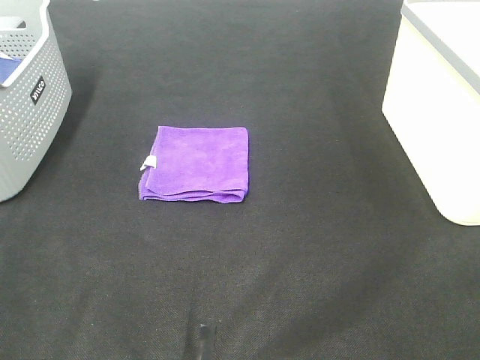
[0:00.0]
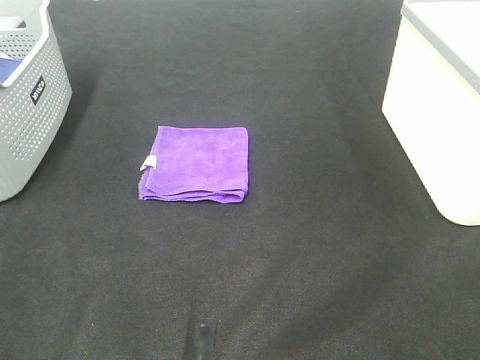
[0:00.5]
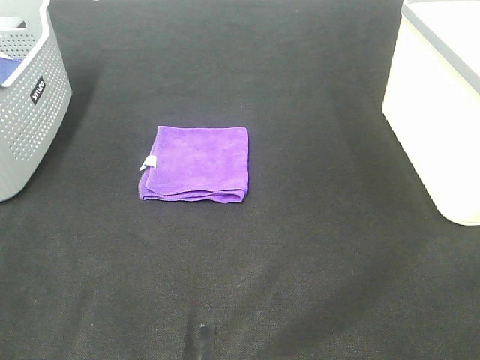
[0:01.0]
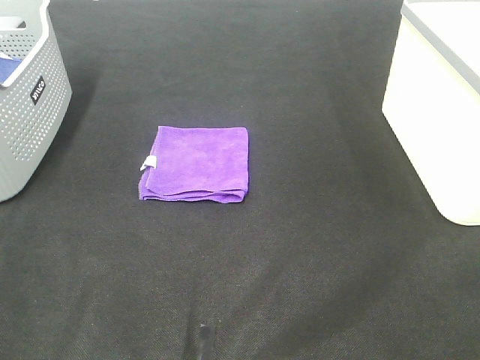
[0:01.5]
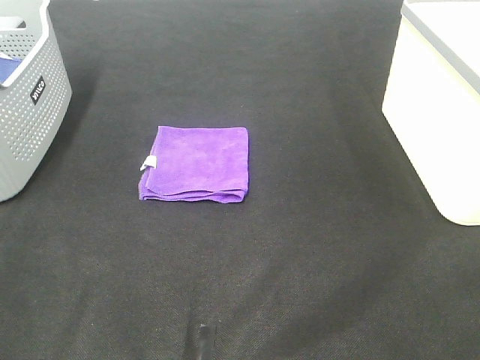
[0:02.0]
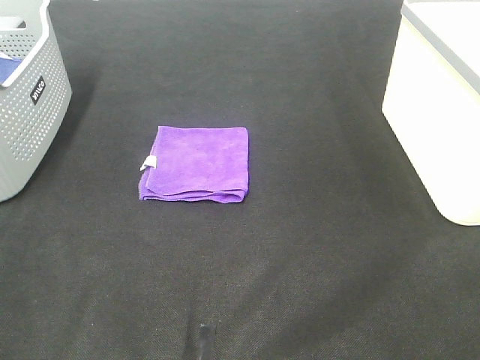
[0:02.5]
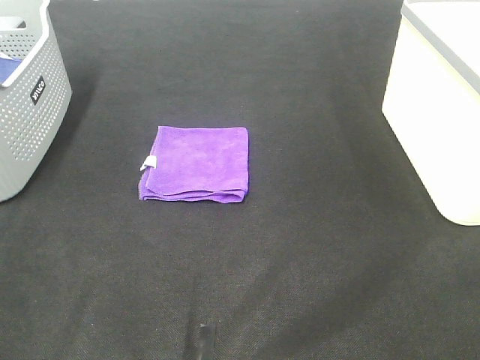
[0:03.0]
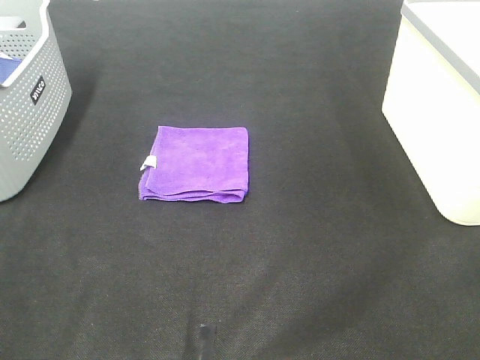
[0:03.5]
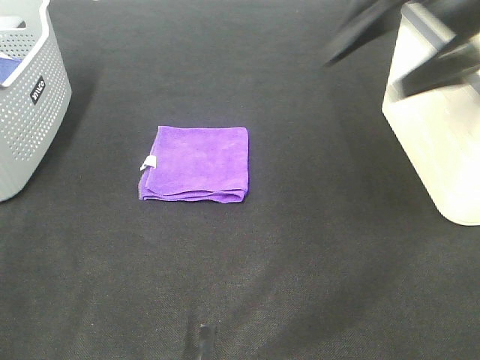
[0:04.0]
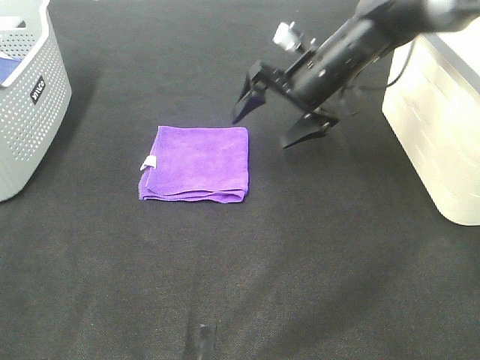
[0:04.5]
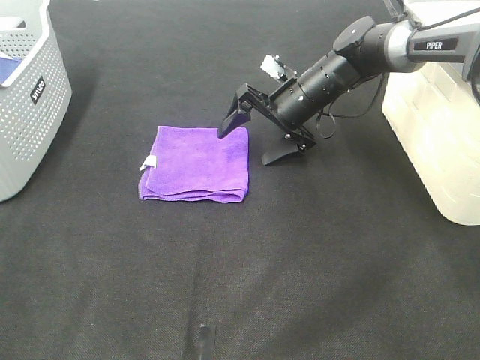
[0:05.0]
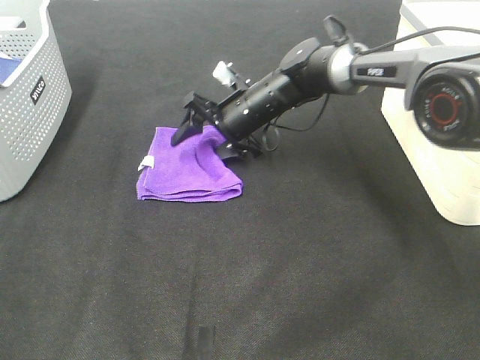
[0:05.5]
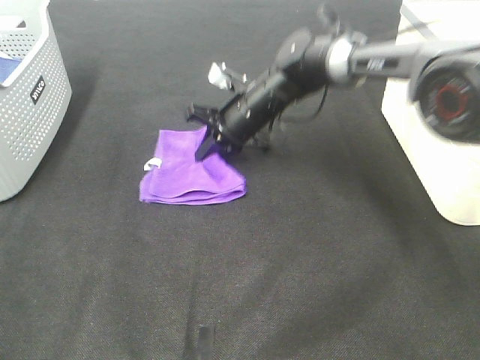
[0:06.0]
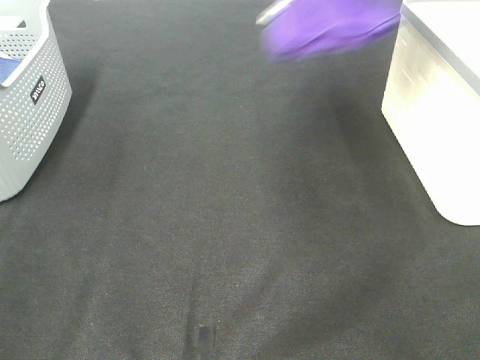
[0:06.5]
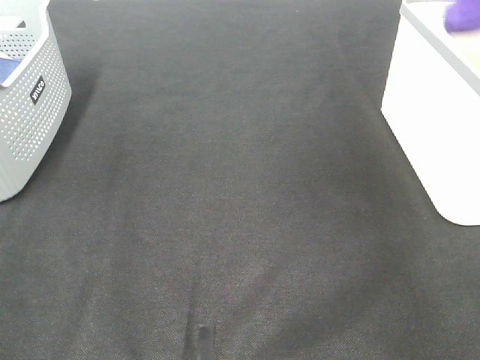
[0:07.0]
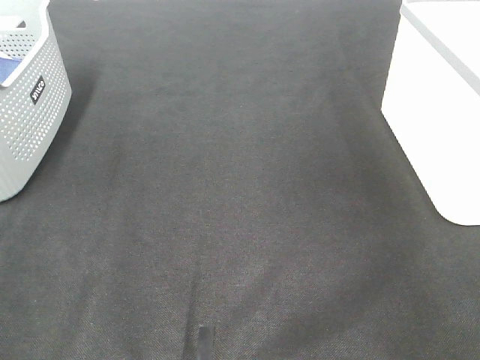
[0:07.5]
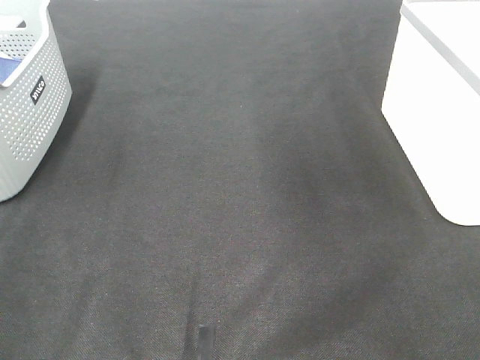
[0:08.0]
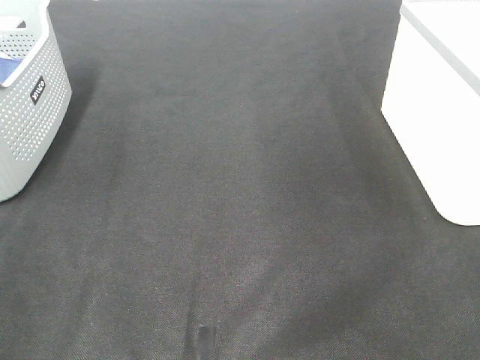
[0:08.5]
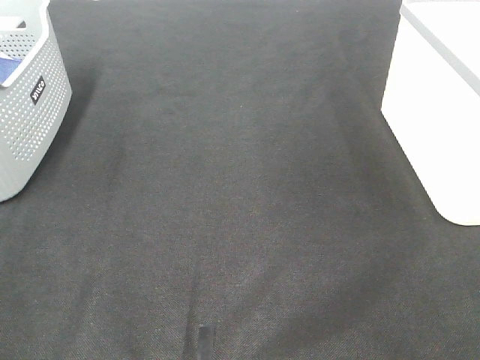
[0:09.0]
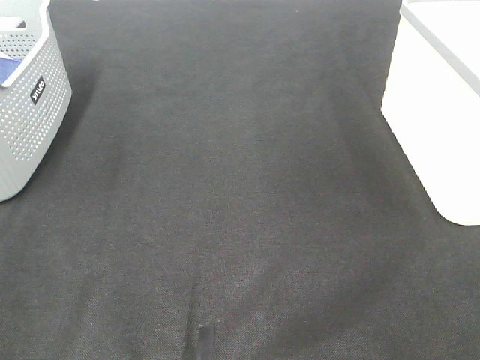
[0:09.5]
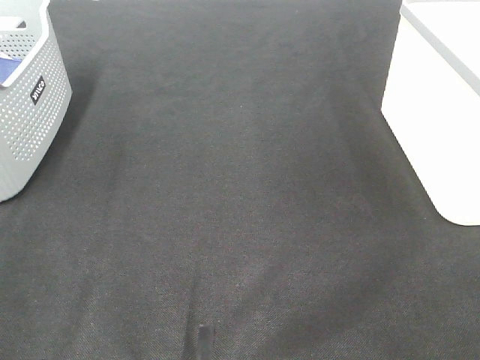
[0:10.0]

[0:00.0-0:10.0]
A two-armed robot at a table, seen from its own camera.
Step, 0.0 to 5.5 s: Right hand: grab the folded purple towel.
Step, 6.0 to 7.0 s: Right hand: place the purple towel in right basket.
0.0 to 2.0 s: Both grippers stay put.
2.0 to 4.0 s: The right gripper heads forward, covering approximately 35 cm.
4.0 to 6.0 s: The right gripper heads downward, to the left and forward, covering about 25 cm, and closes up.
6.0 to 8.0 s: The right gripper goes about 35 cm upward and to the right, and opens up.

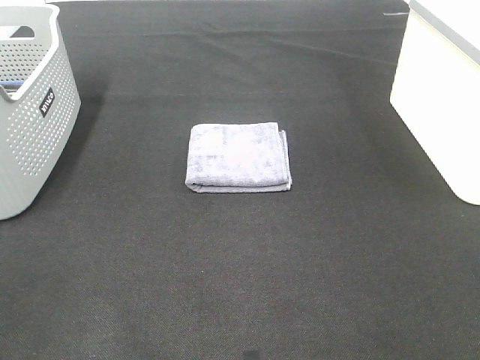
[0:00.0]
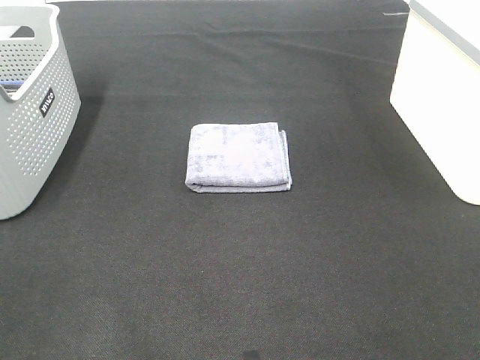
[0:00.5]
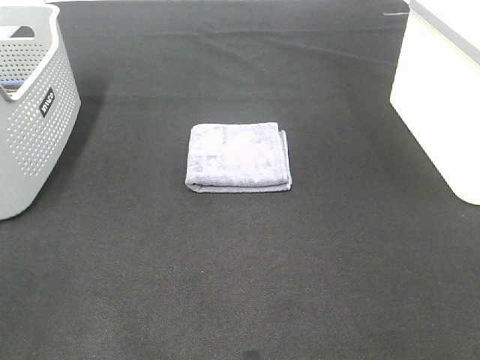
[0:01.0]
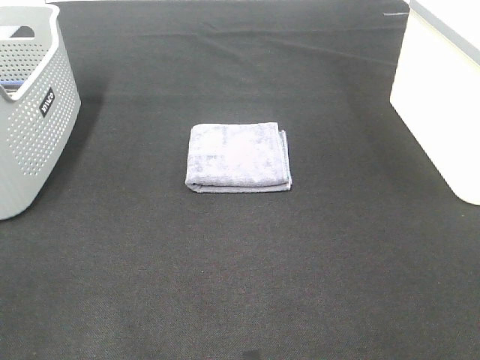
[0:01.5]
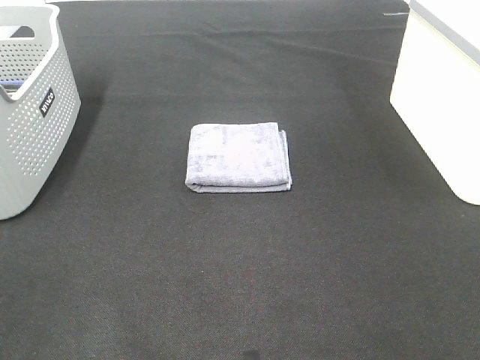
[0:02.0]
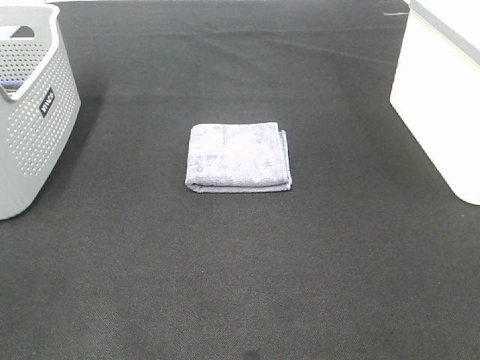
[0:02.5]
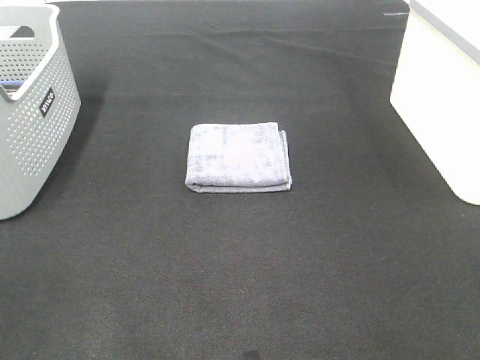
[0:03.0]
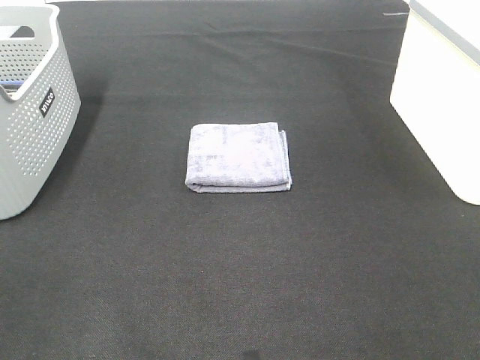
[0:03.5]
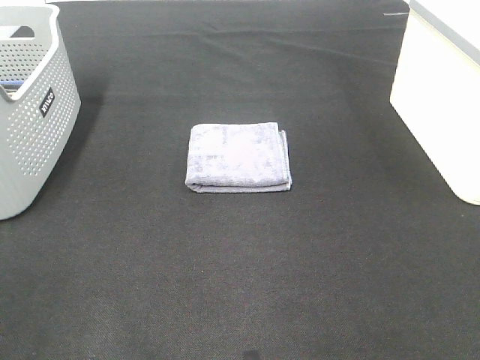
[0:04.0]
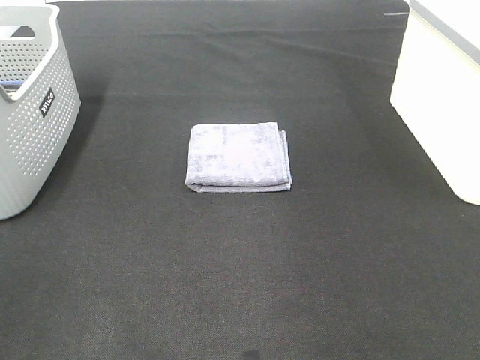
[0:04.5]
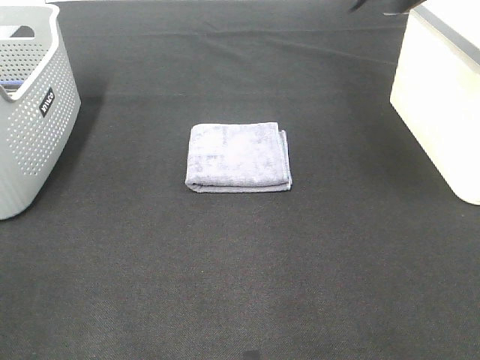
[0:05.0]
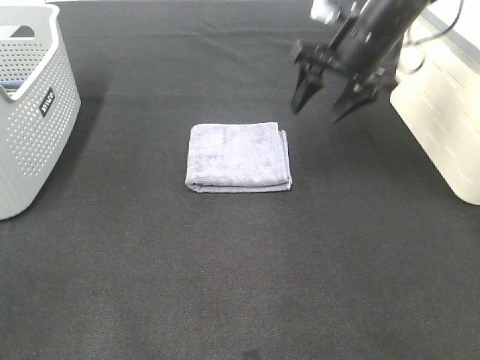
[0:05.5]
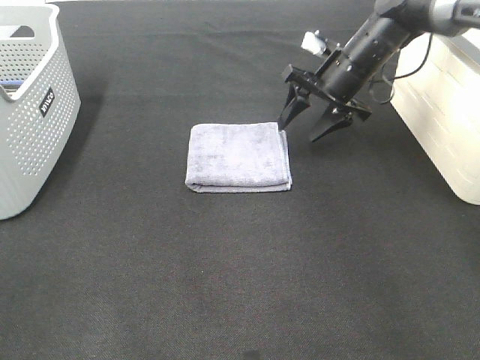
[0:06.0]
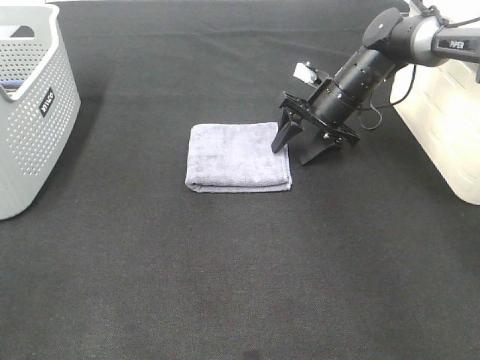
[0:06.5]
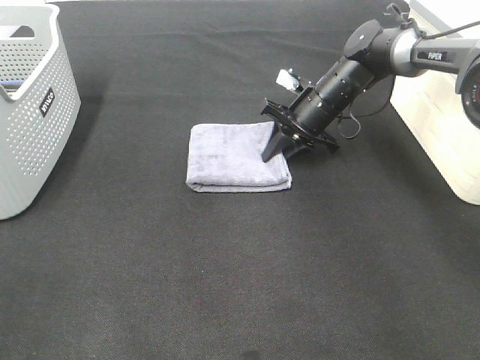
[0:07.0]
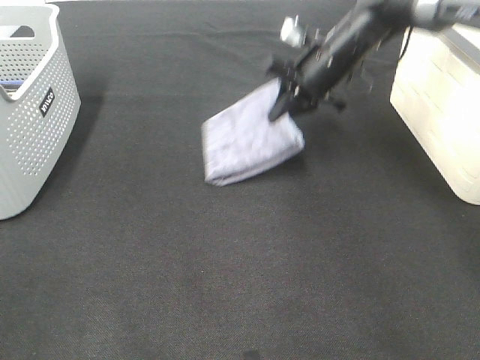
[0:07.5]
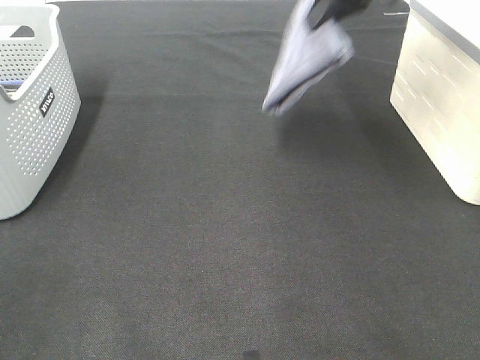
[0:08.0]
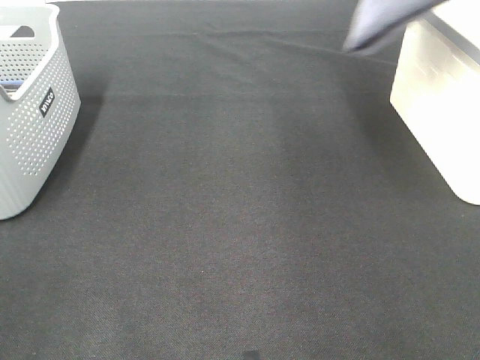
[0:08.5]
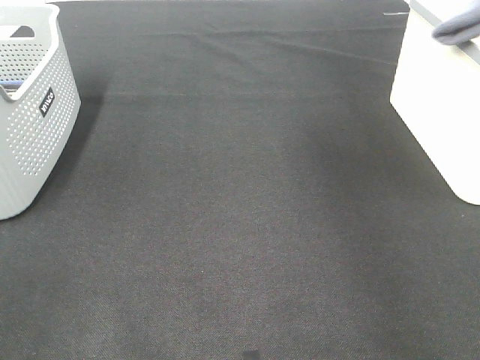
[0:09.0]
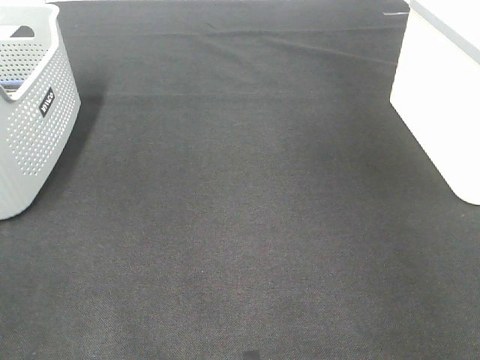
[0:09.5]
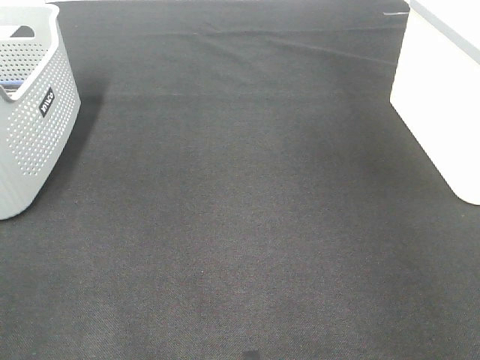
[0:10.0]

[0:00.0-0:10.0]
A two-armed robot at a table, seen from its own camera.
Step, 0.0 to 7.0 s: Right hand: grab the folded grey towel.
Step, 7.5 to 9.5 s: Right hand: place the grey towel in right basket.
0.0 to 2.0 s: Neither gripper changes place.
4.0 to 6.0 s: The right gripper travels forward and downward by roughly 40 cm.
6.0 to 8.0 s: The right gripper travels upward by some 20 cm, and closes its fingers.
8.0 to 10.0 s: The right gripper moves to the right, roughly 25 cm, and opens up.

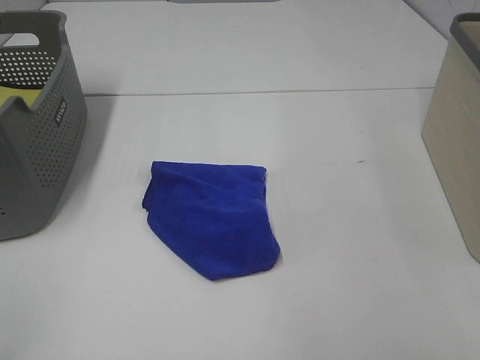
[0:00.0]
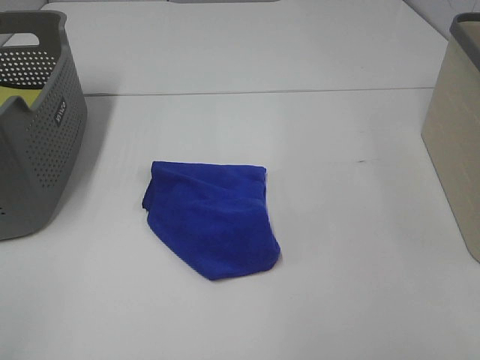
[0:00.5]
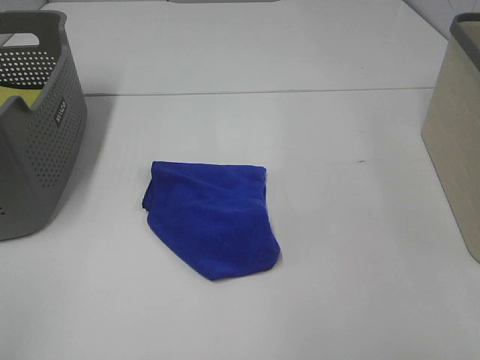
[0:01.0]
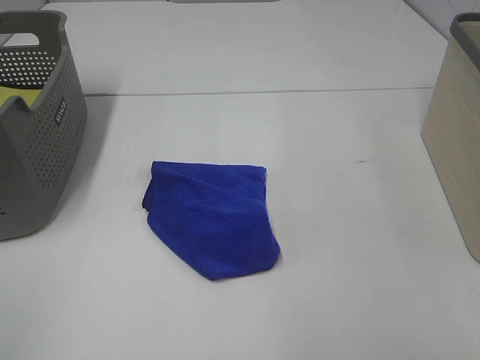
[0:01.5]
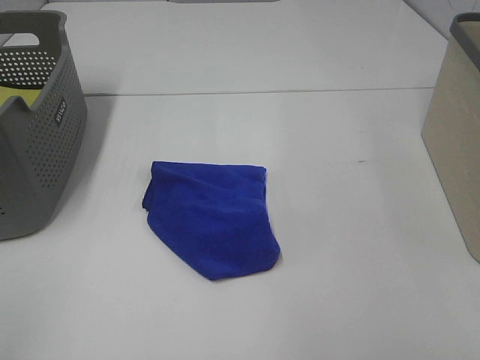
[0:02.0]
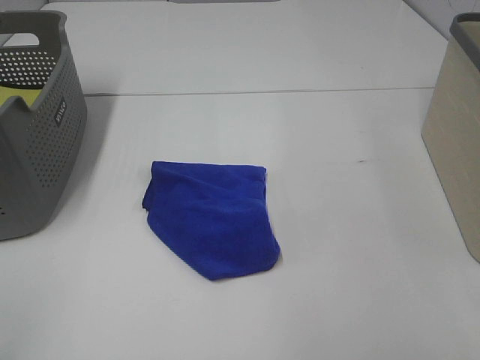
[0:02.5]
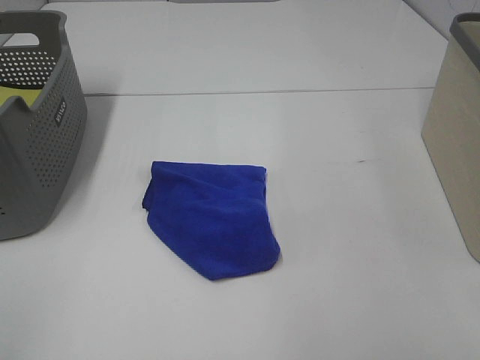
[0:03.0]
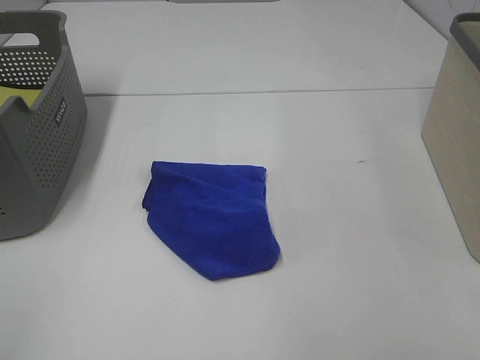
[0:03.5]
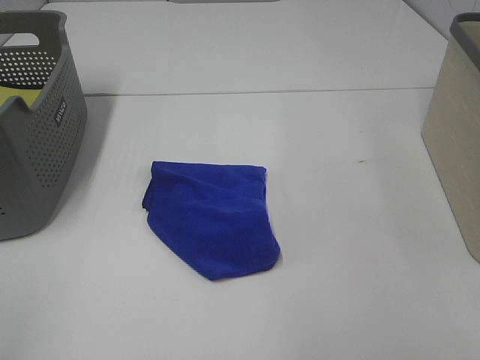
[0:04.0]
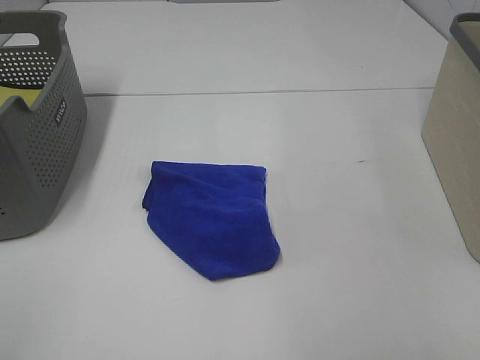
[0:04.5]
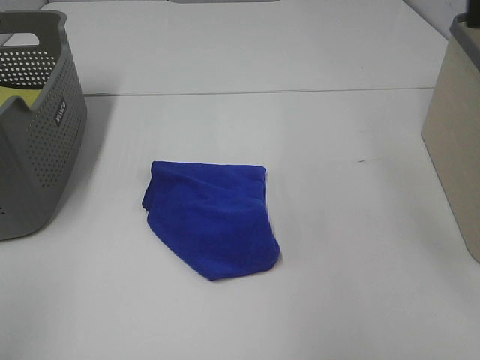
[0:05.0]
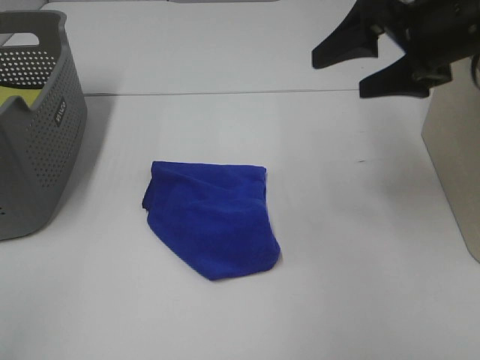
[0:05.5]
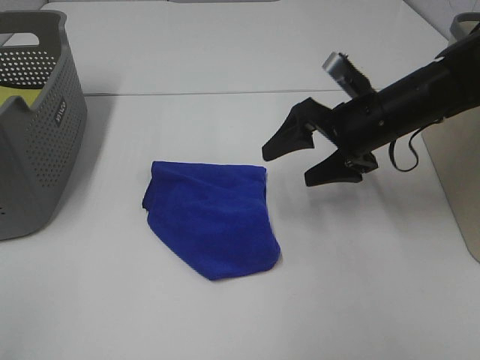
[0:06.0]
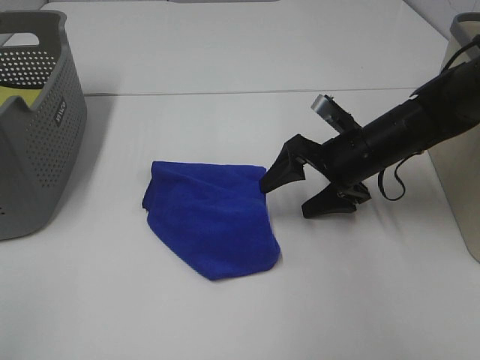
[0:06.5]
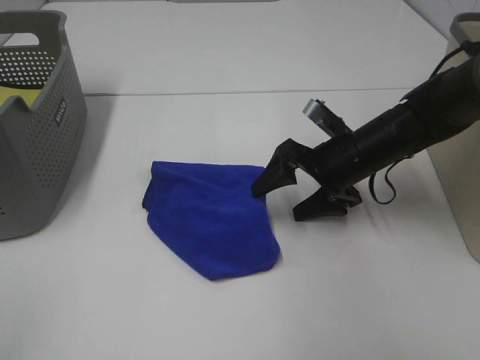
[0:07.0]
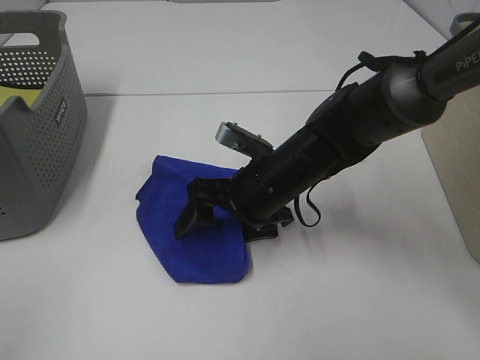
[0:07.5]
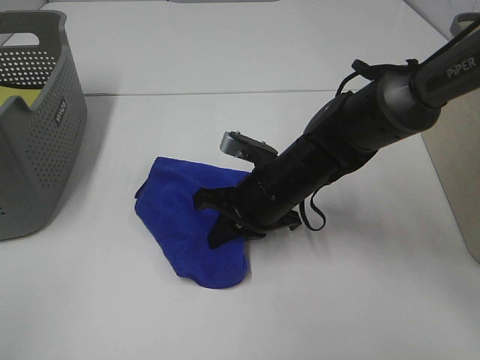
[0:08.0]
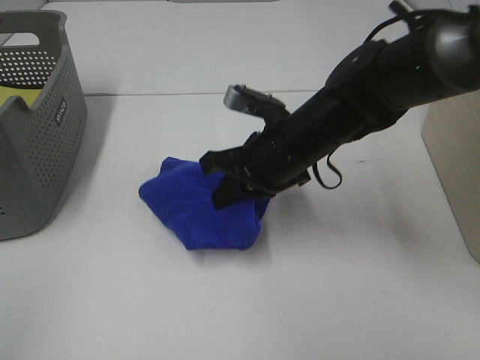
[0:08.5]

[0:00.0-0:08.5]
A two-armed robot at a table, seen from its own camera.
Step, 0.0 to 8.0 s: Right hand: grab the folded blue towel.
0.0 to 4.0 s: Both grippers stay about where they are.
4.0 to 6.5 s: The right gripper shifts approximately 40 cm forward and downward.
6.5 to 8.5 s: The right gripper heads to the left and upward, covering about 10 cm, and closes up.
